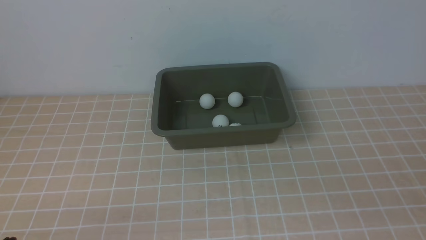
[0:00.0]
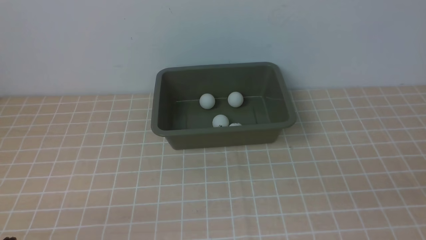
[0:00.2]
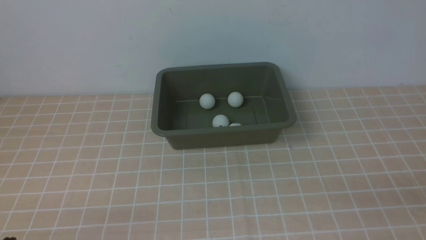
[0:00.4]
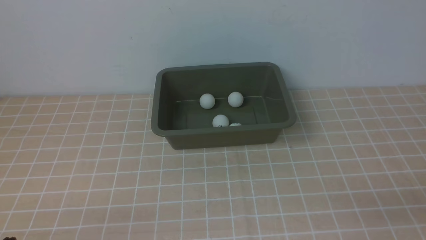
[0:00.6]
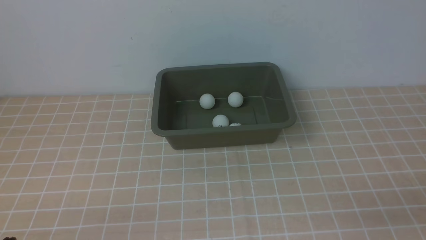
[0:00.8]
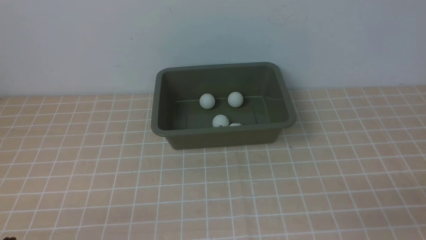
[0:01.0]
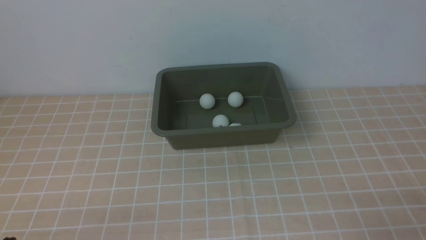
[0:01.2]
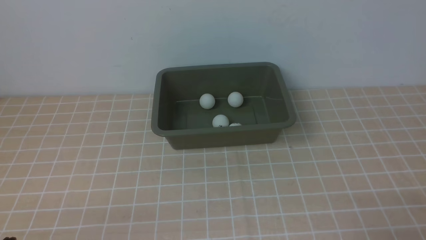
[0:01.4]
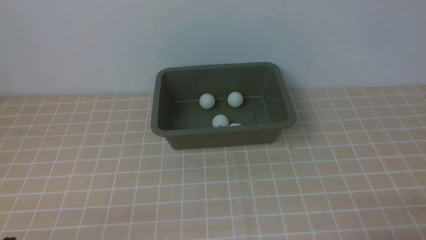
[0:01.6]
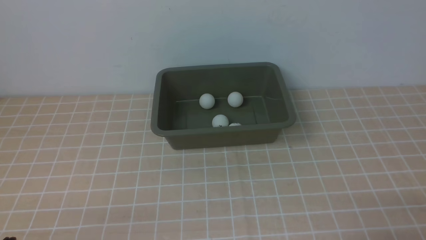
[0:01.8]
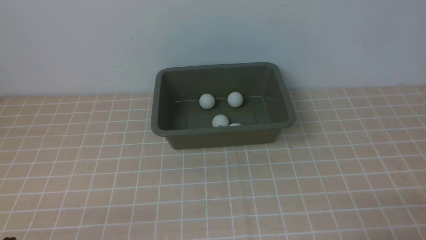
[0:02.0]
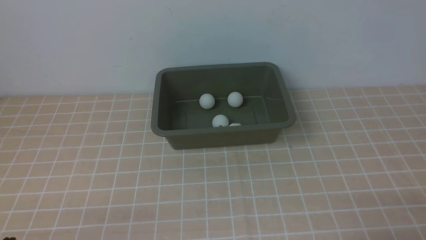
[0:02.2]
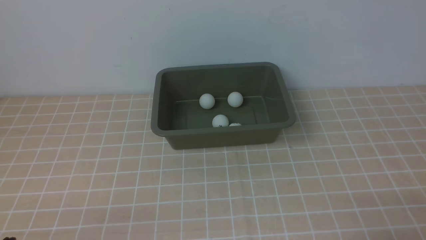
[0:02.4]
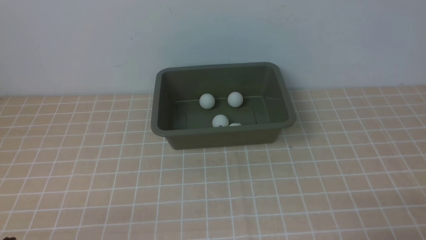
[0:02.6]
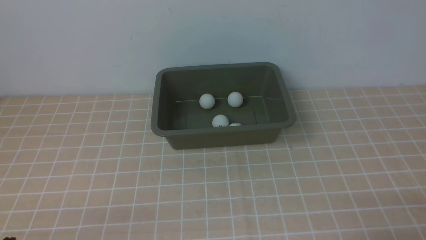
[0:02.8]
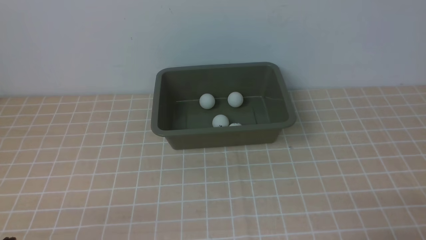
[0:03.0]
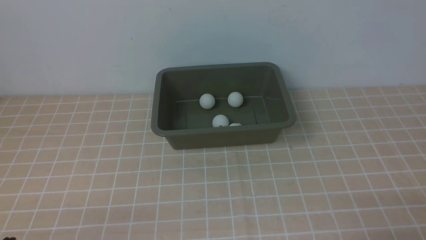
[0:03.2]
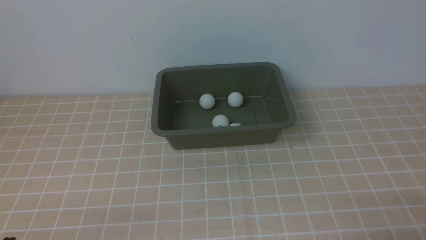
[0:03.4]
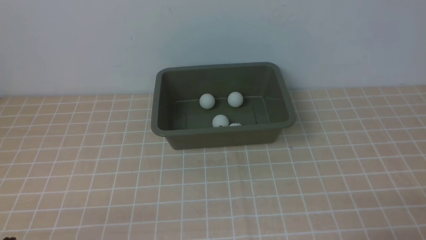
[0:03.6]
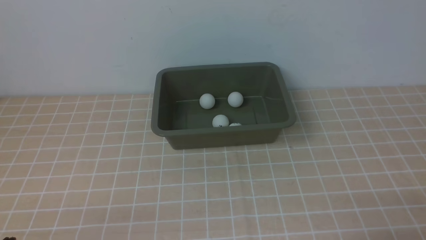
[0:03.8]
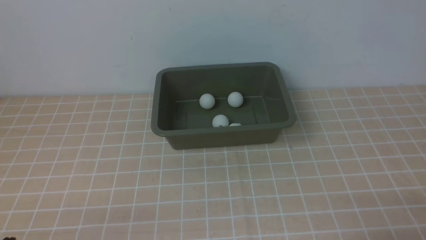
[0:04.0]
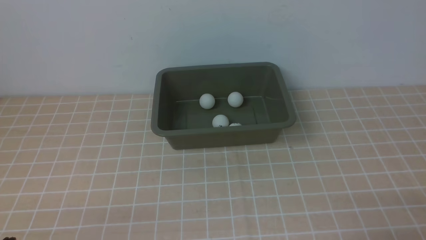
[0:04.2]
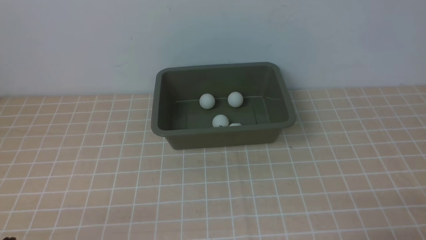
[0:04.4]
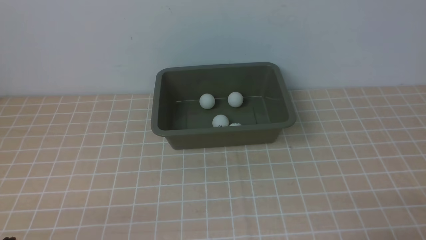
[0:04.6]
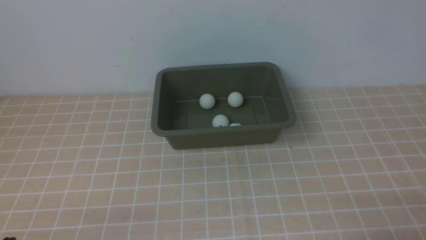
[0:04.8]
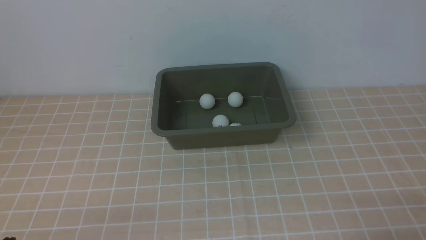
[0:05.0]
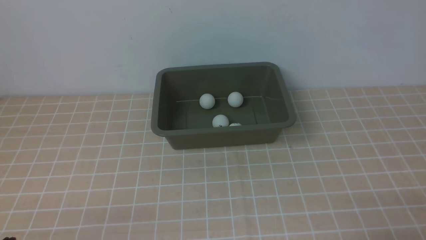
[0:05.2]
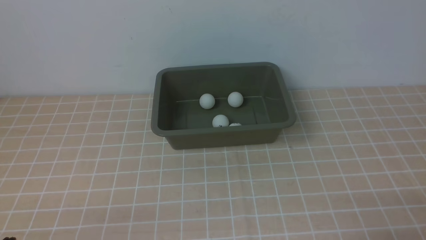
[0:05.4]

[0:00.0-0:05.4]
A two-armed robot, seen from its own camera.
0:02.8 to 0:05.4: The two grippers keep their place.
